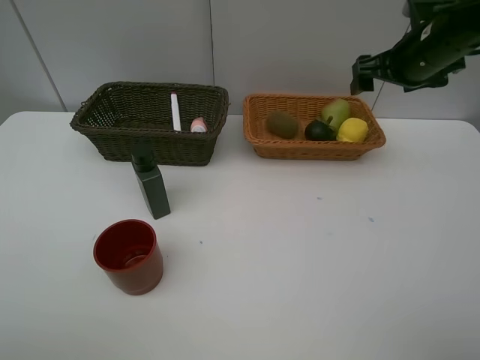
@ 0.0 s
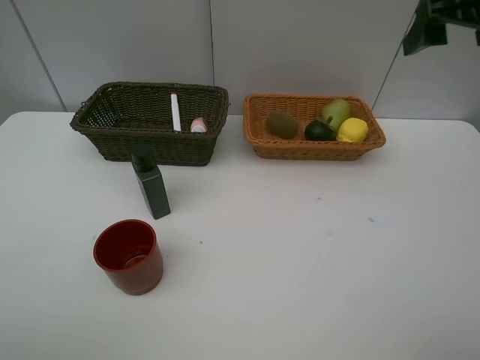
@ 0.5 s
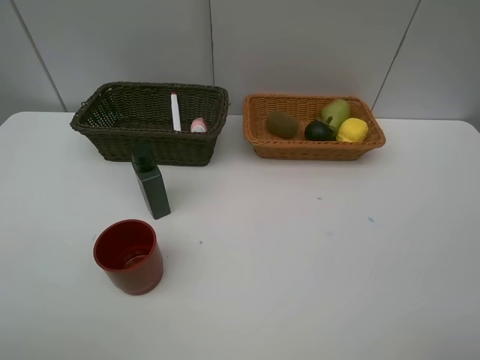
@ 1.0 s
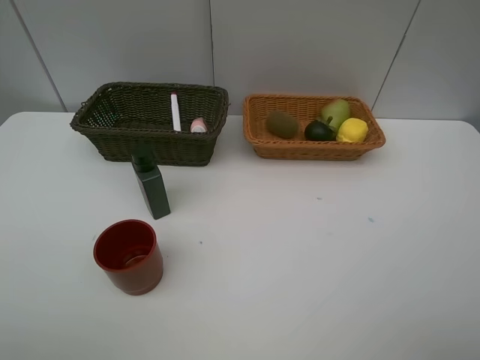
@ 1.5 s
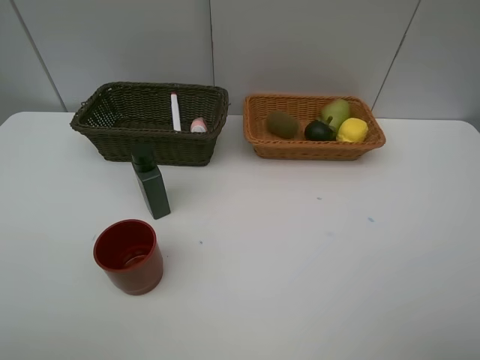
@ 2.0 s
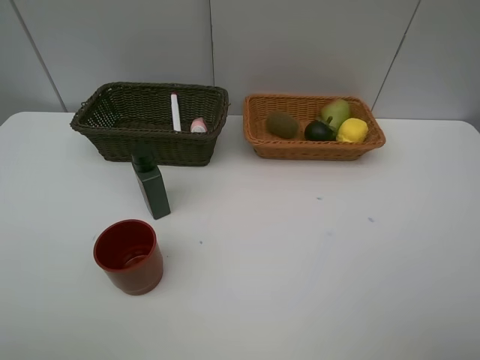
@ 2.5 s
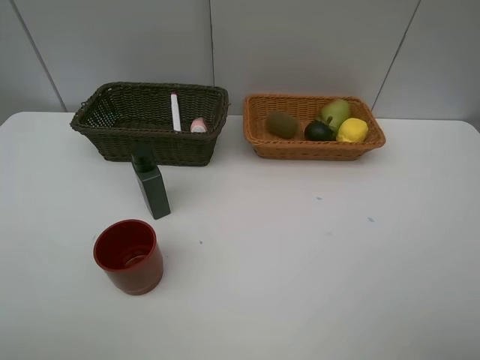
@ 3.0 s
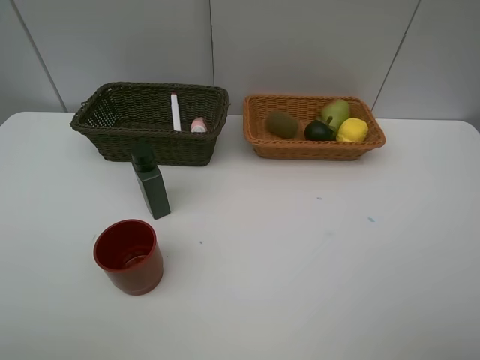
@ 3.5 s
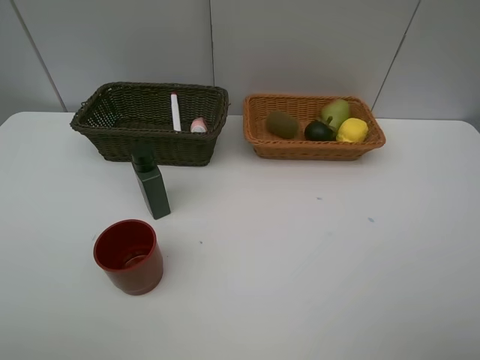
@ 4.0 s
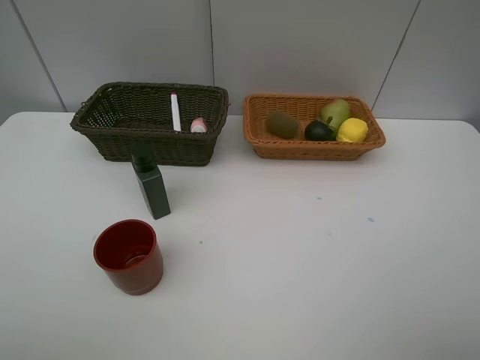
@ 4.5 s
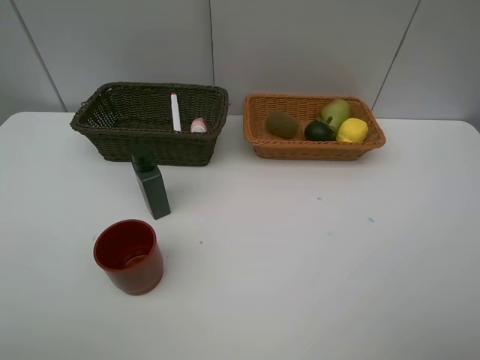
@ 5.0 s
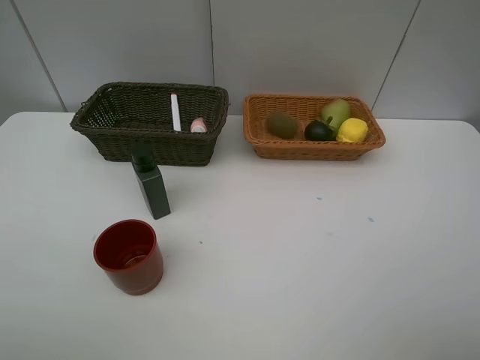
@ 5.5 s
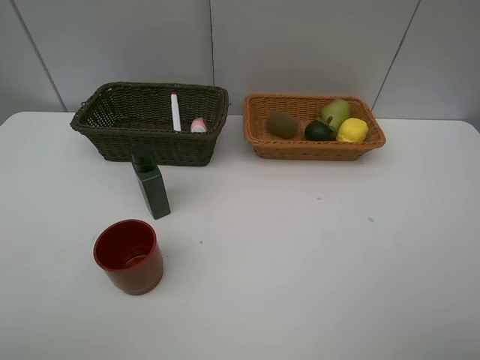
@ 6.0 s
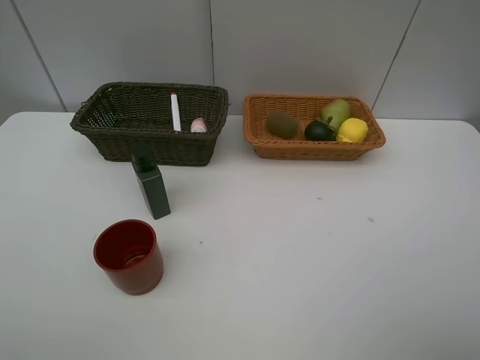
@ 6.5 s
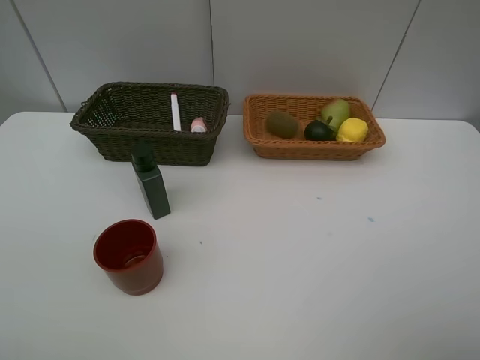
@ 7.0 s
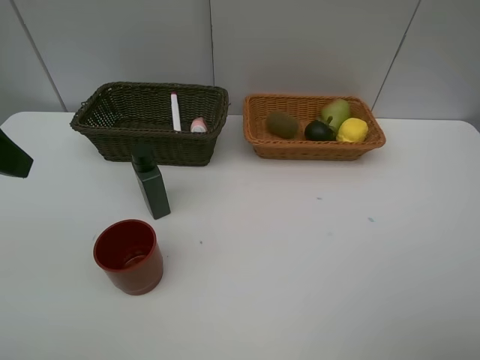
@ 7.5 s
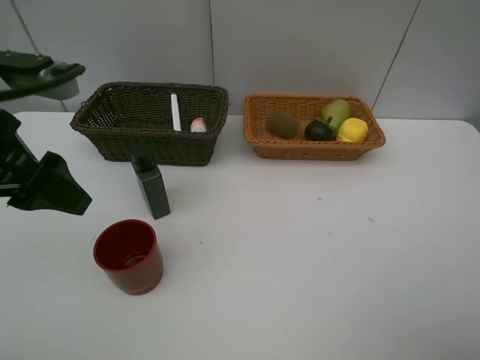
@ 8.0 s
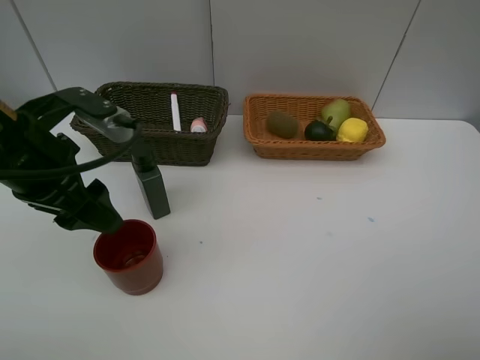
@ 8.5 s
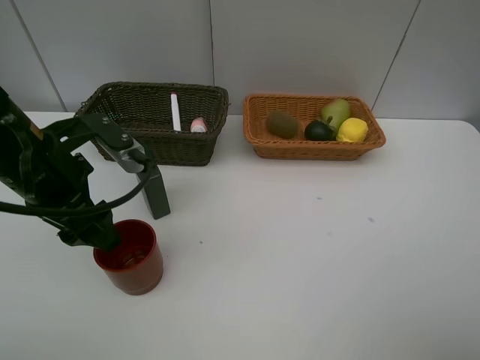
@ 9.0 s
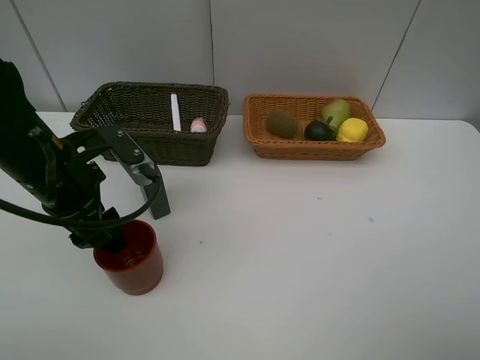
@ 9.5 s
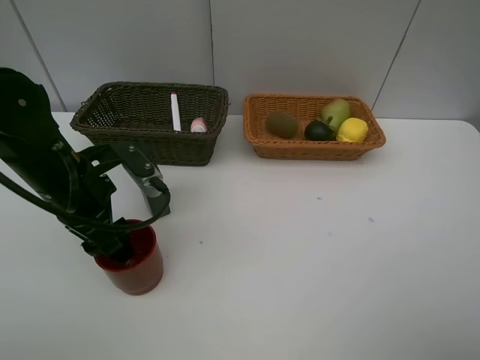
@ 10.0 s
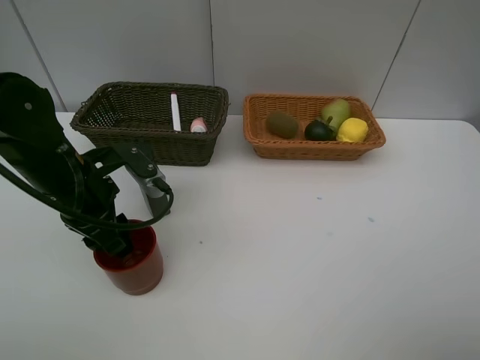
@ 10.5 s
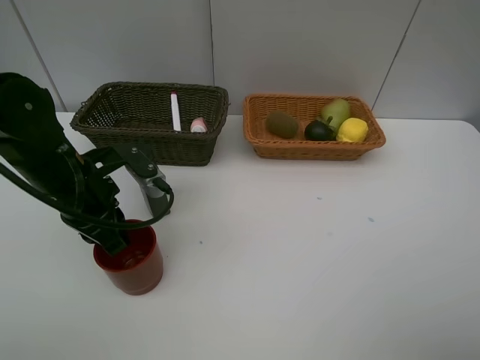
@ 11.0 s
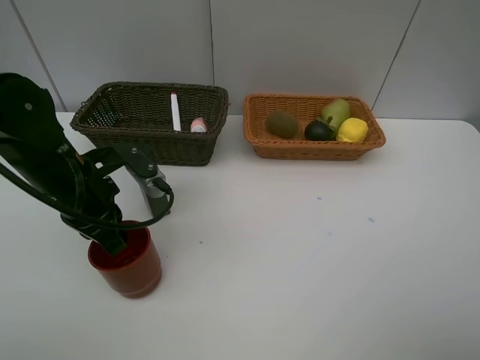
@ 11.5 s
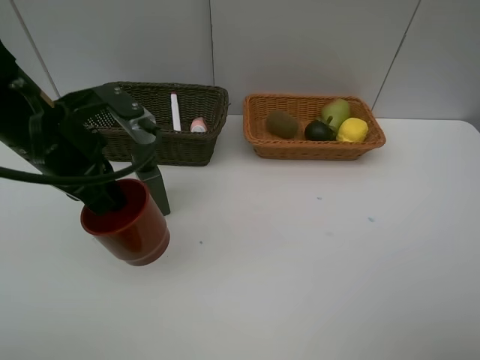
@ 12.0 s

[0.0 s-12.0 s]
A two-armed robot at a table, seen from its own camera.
Task of the whole recording: Place multiple objects separately in different baskets.
Step, 0.0 to 11.5 s: Pick up the dark brown cup with left gripper.
0.0 to 2.0 s: The right gripper shifts some 40 cm backward.
4.0 to 6.0 s: Neither gripper changes place.
6.0 to 8.0 s: The left gripper heads forward and to the right, covering approximately 20 cm.
8.0 to 10.0 s: The left gripper travels downward by about 10 cm.
10.0 to 12.0 s: The left gripper goes roughly 10 cm upward, and closes up.

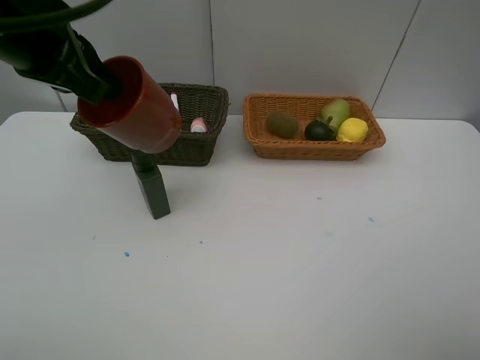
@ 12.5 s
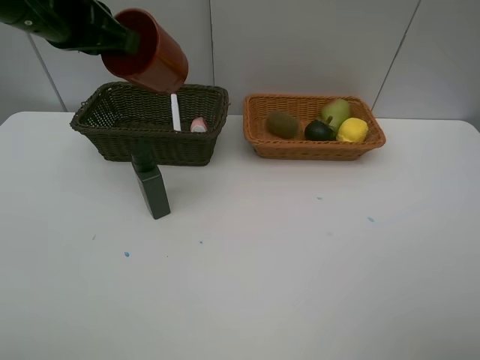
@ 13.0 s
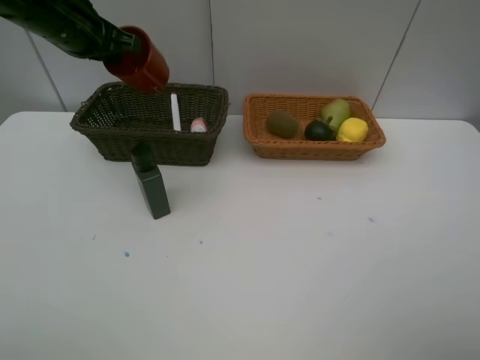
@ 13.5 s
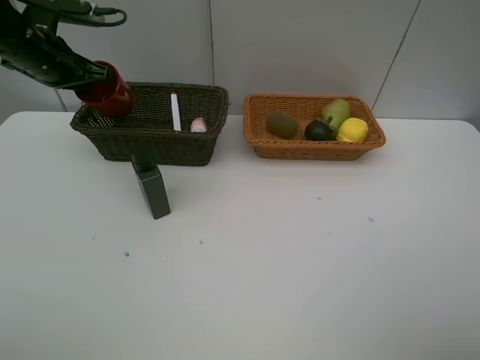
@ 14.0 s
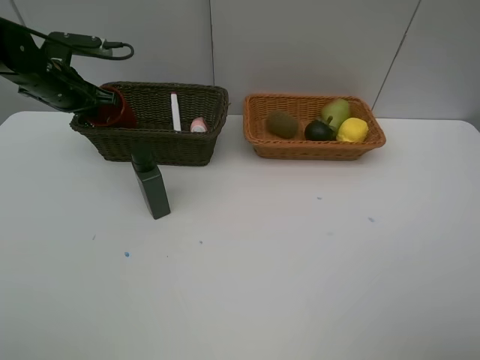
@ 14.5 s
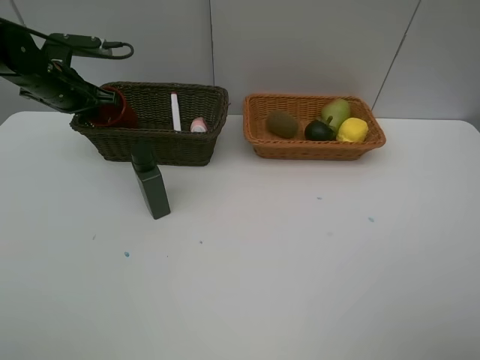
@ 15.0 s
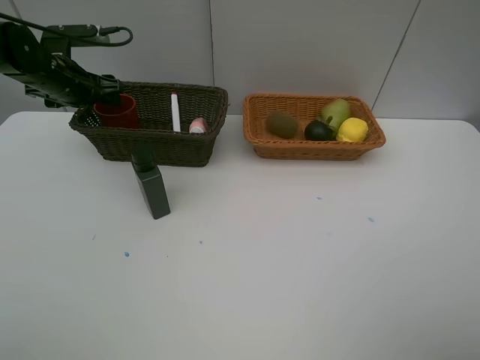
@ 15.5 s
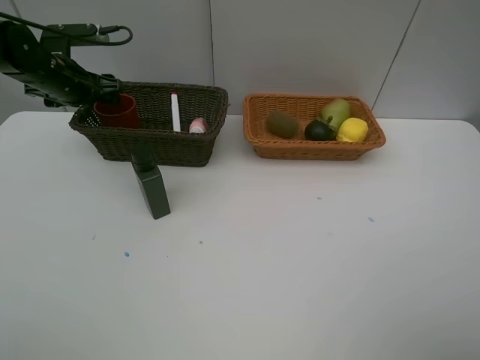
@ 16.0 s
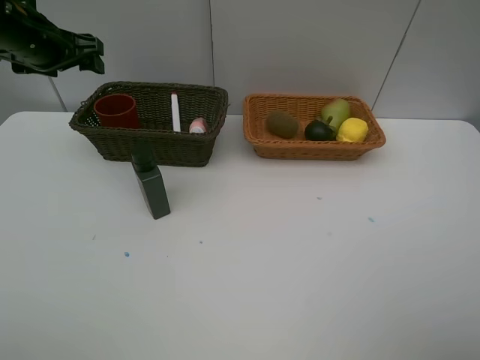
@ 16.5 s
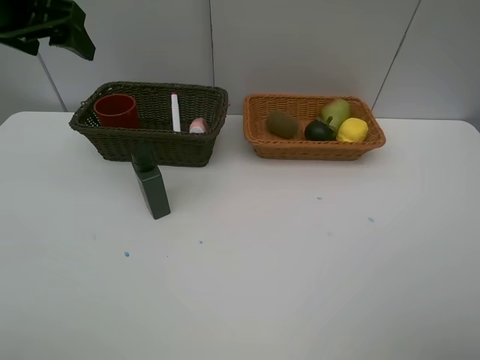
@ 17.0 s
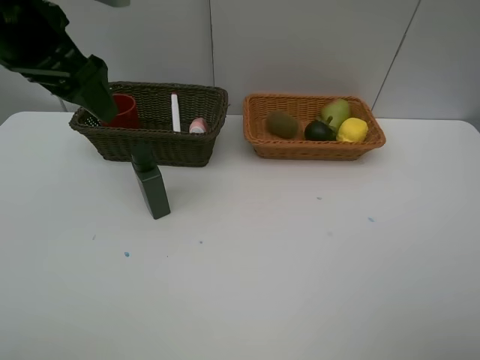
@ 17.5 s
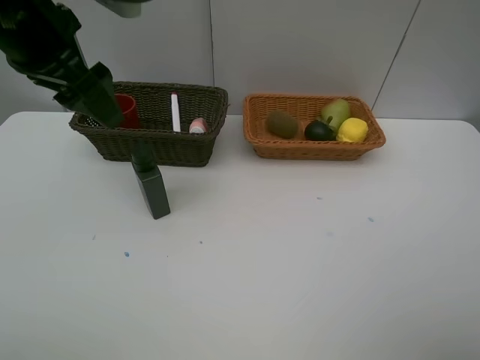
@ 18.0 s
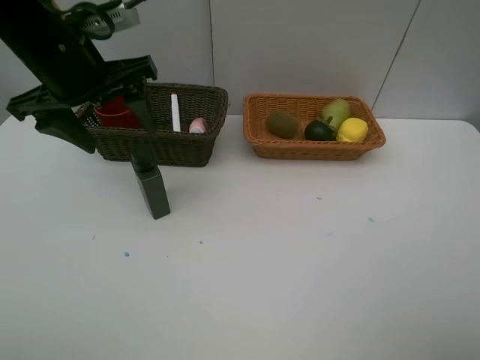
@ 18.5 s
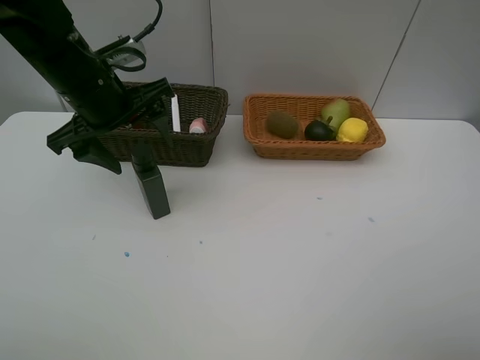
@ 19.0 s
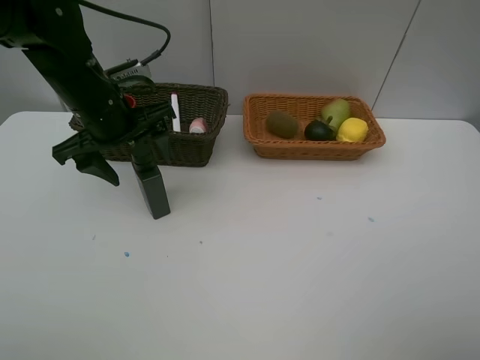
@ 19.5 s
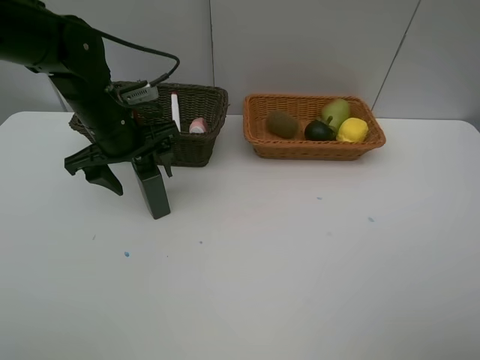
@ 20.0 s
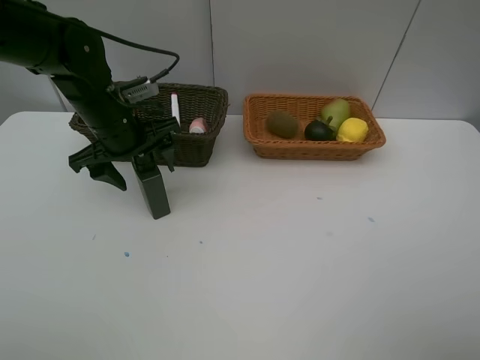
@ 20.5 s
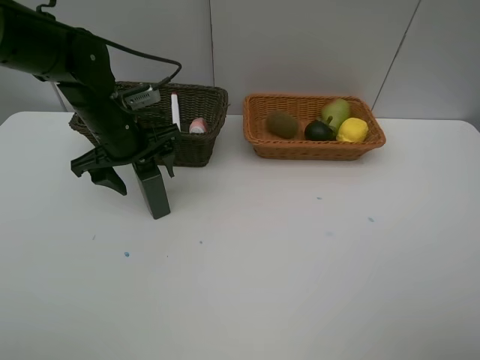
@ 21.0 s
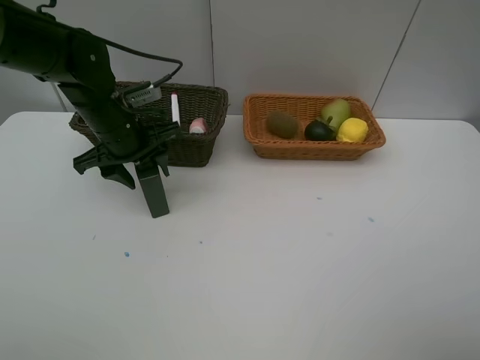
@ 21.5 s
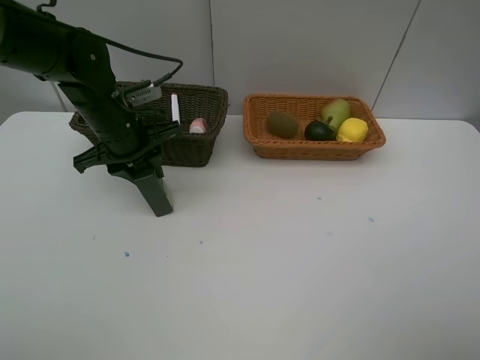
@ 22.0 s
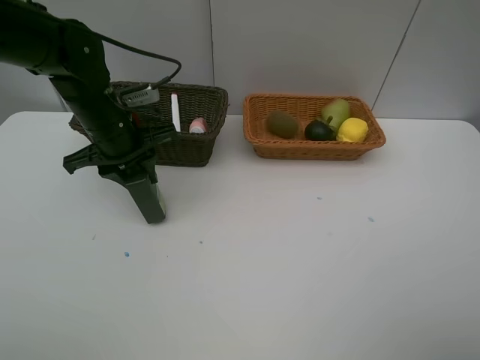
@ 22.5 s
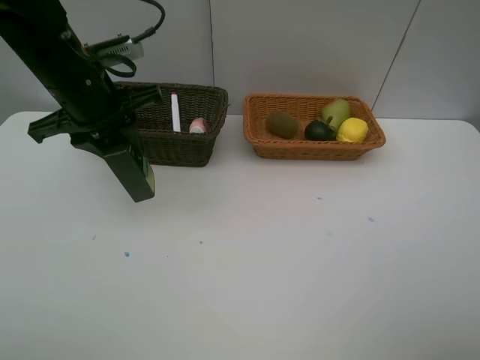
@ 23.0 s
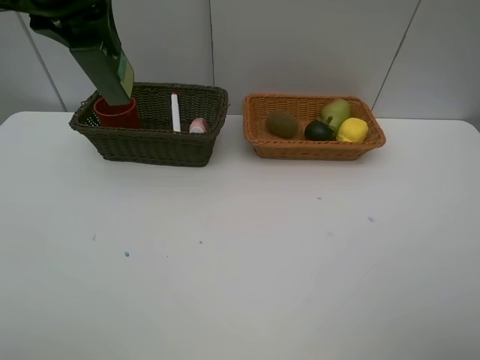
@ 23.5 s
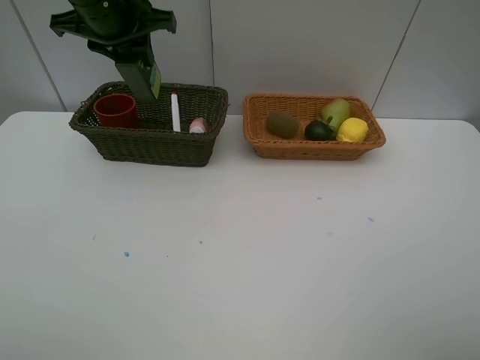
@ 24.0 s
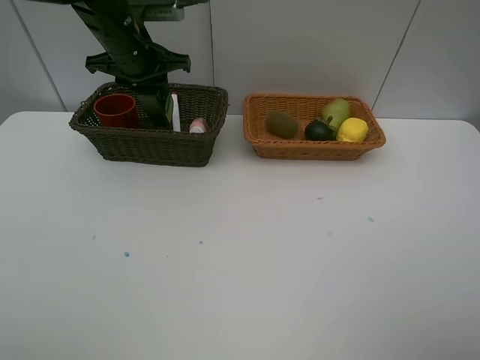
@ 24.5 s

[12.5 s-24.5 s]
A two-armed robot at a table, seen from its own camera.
Task of the whole recording: Place multiple objects separately in different baskets.
Step, 12.5 to 16.0 s: Place the dark brown cup in the dark basket with left gripper.
Step, 16.5 to 22.5 s: Pick up the hard facial cleanser with left gripper.
12.5 to 14.5 s: The left gripper is displaced forward, downward and to the left by about 25 cm.
14.5 to 16.5 s: The left gripper travels upward by approximately 10 cm, and opens up.
16.5 to 18.5 s: The left gripper shifts some 15 cm to the right and backward.
18.5 to 20.5 s: The left gripper travels downward by some 10 cm.
20.5 to 22.5 s: The left gripper closes.
22.5 to 24.5 s: The left gripper is displaced forward by about 10 cm, and reaches roughly 20 cm upward, then returns.

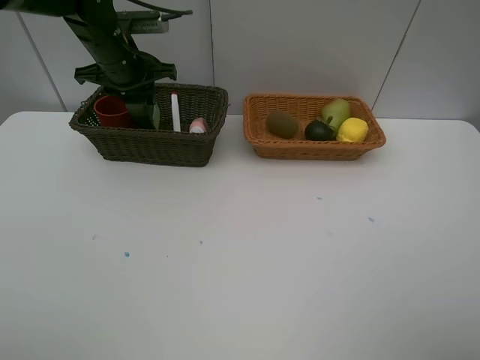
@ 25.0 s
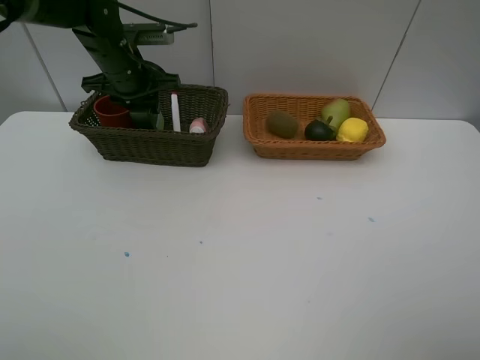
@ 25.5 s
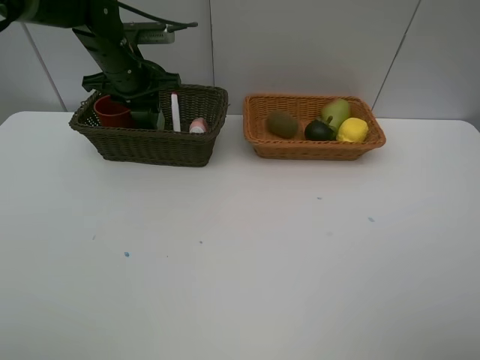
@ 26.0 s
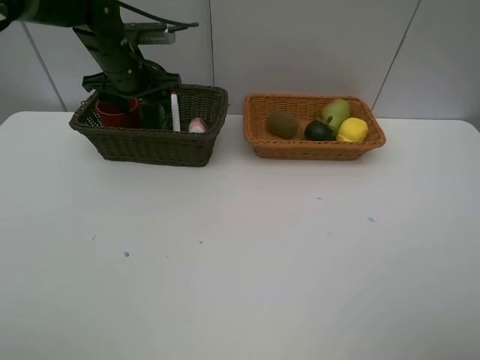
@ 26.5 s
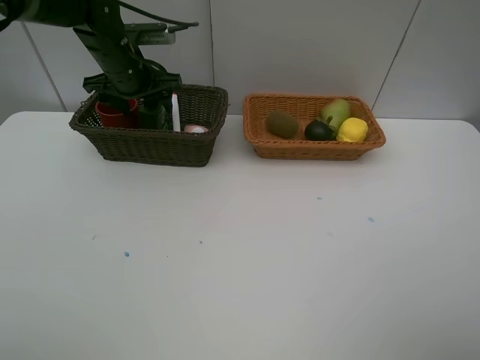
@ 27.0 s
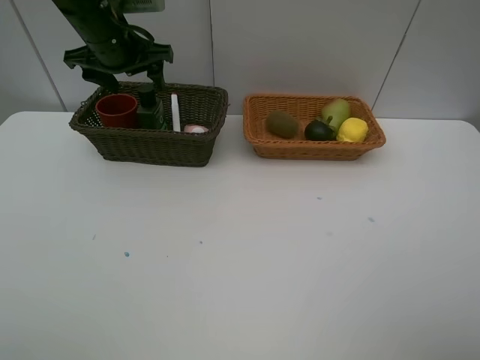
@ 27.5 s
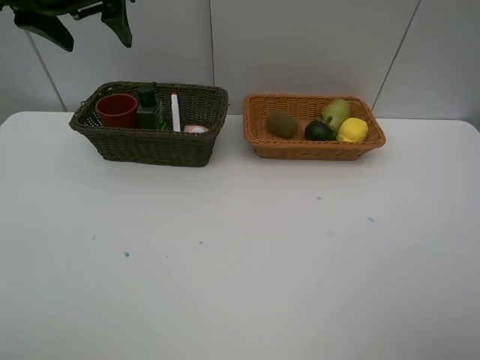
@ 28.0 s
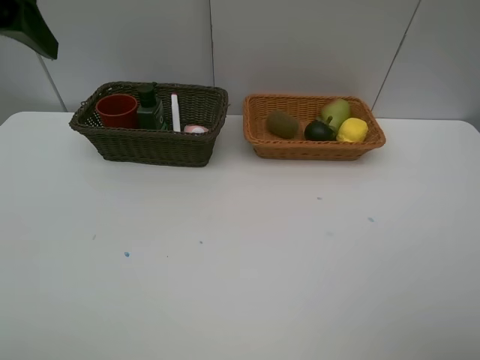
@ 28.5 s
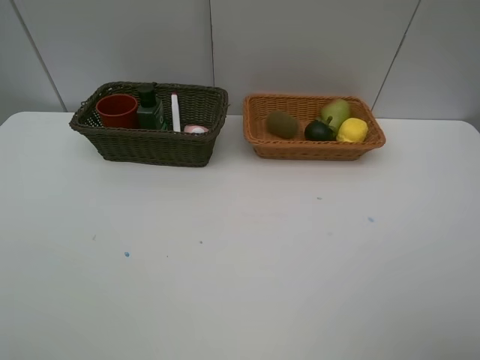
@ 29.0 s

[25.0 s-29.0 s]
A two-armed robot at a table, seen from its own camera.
Task of the whole recording: Place multiple objects separately in different baskets.
Step, 25.0 to 27.5 s: Place the hard facial cleanser in the dark basket with left gripper.
25.0 to 27.0 s: The left gripper opens.
27.0 to 29.0 s: The left gripper heads backward and upward, covering some 40 cm.
